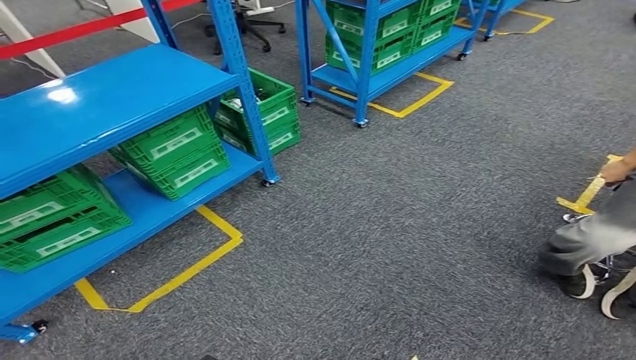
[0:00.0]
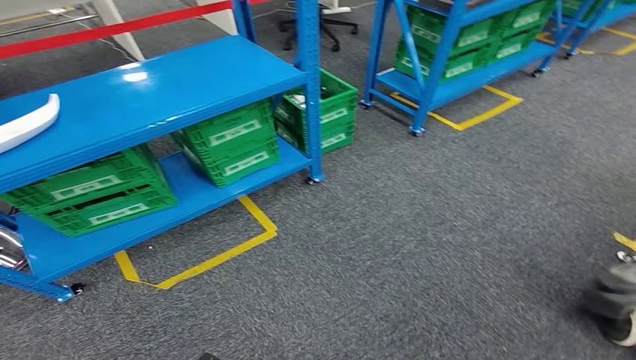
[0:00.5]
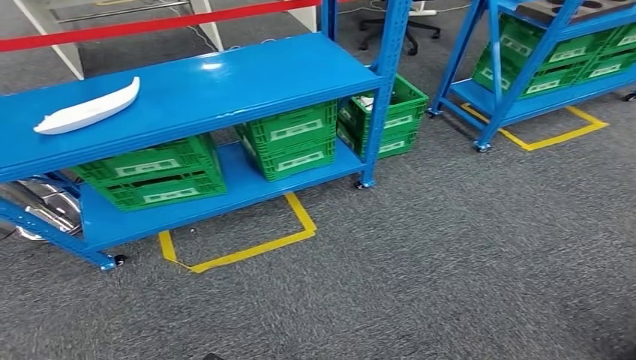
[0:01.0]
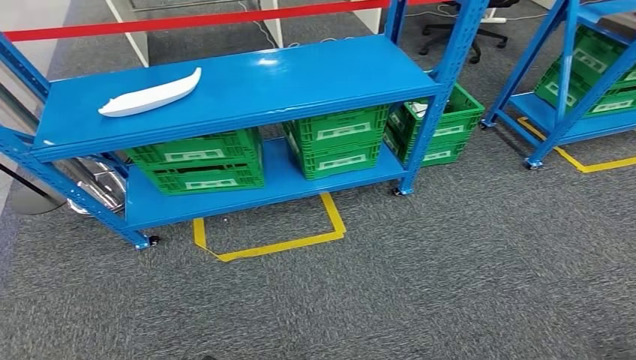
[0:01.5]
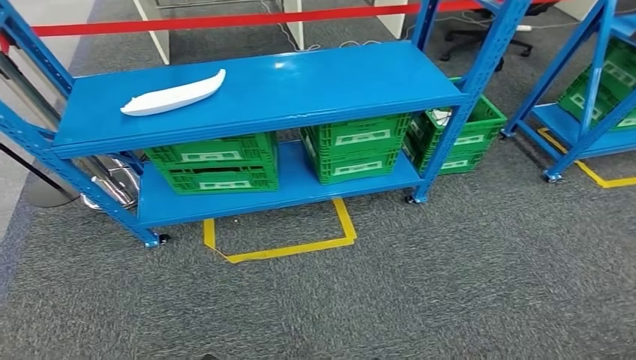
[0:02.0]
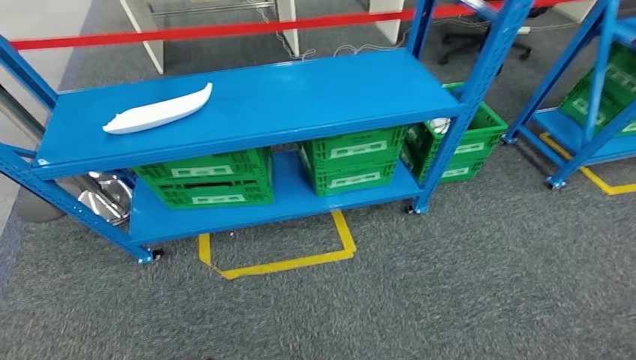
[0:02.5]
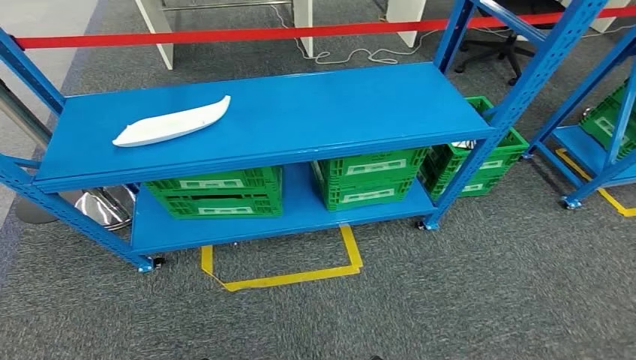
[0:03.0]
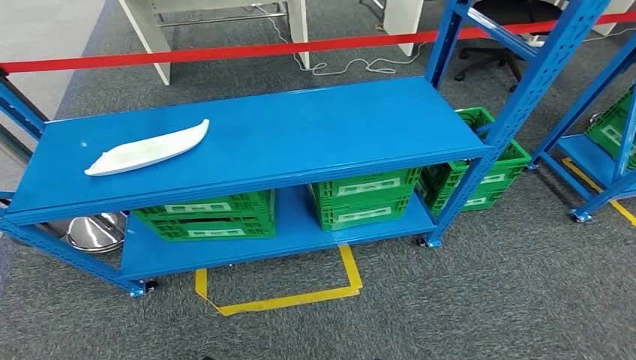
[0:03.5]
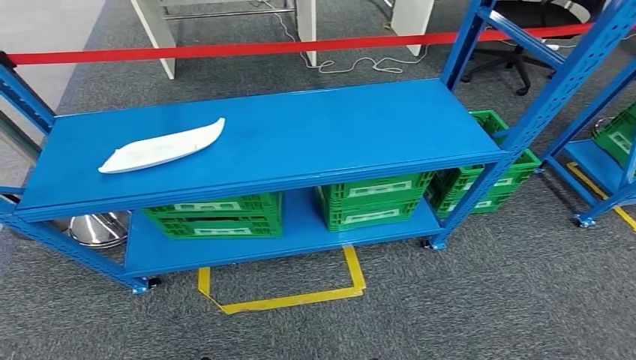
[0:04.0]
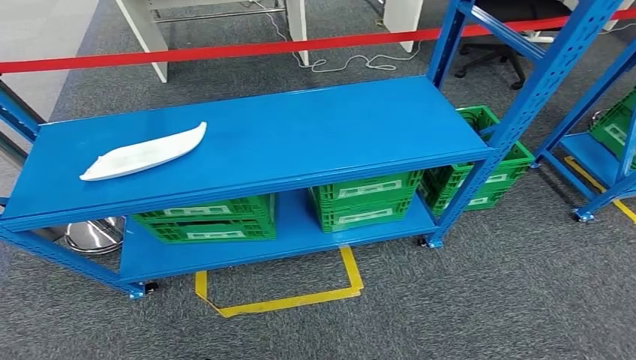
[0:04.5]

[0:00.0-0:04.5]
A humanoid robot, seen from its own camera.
Step, 0:00.0 to 0:04.5: Move to the initial position of the workbench.
